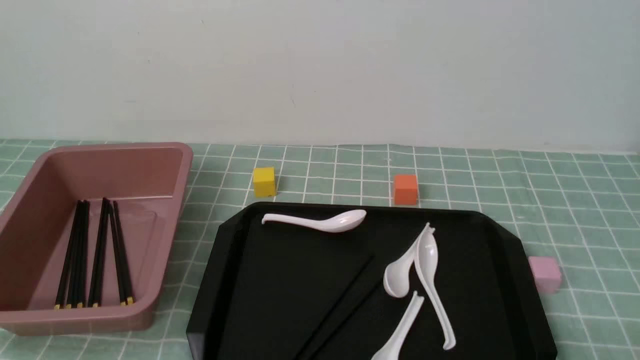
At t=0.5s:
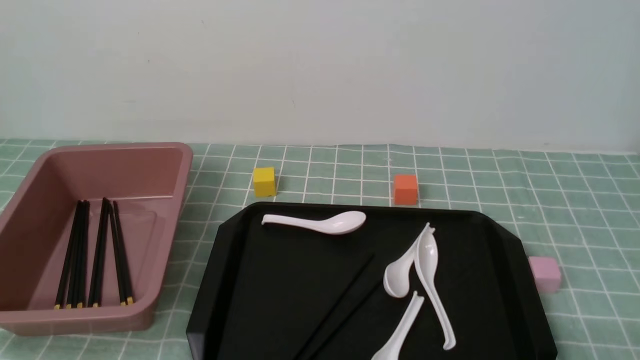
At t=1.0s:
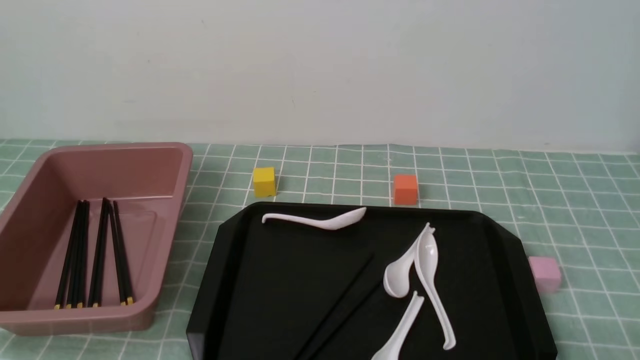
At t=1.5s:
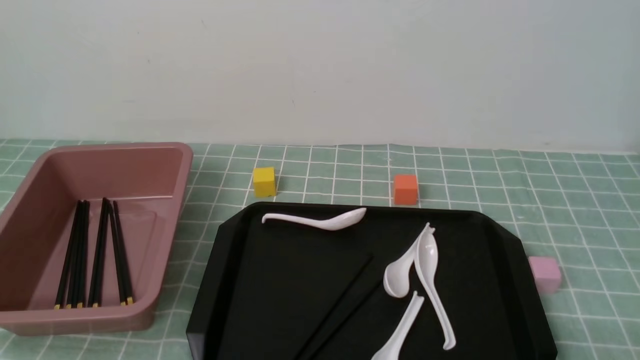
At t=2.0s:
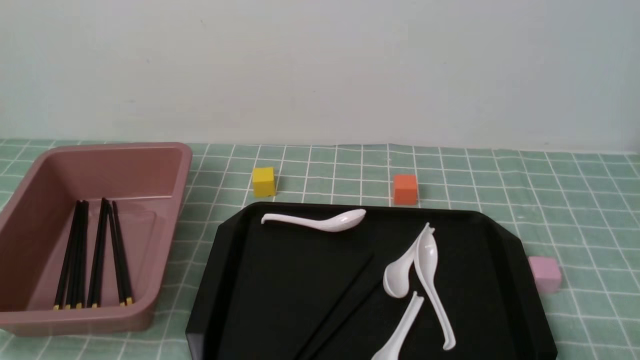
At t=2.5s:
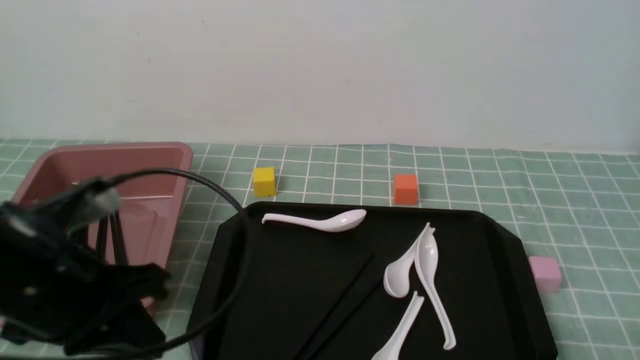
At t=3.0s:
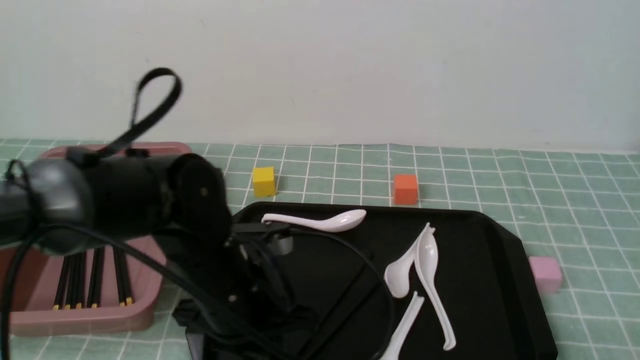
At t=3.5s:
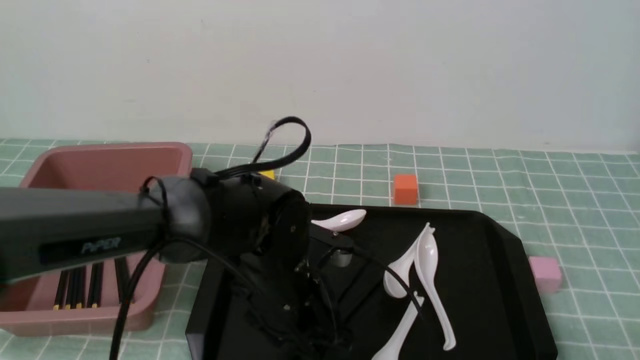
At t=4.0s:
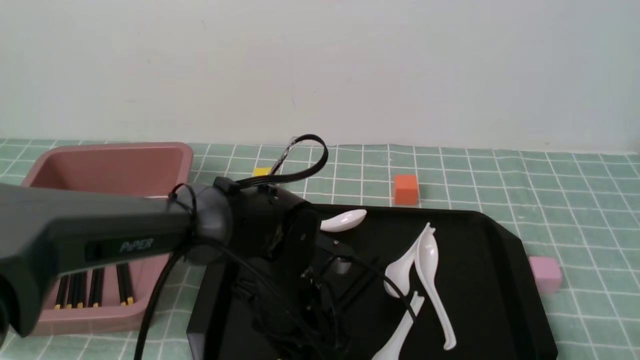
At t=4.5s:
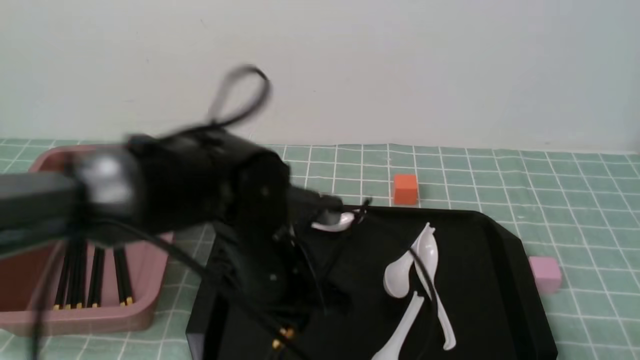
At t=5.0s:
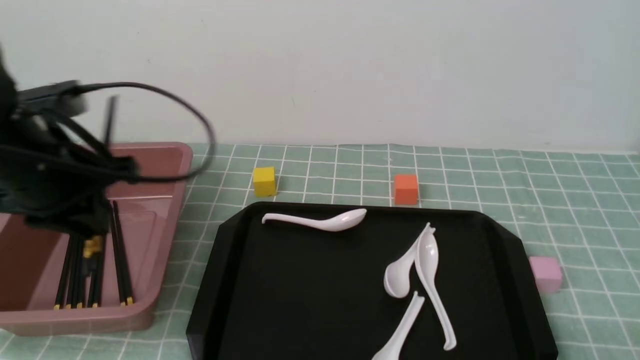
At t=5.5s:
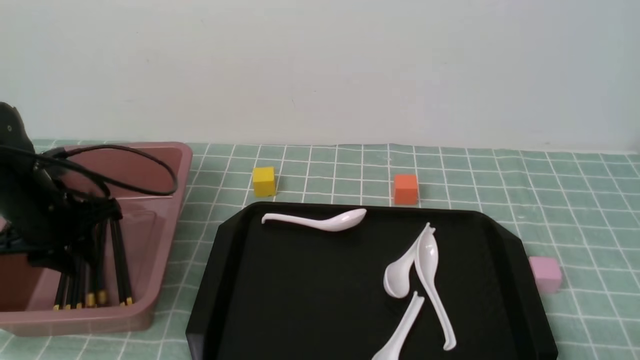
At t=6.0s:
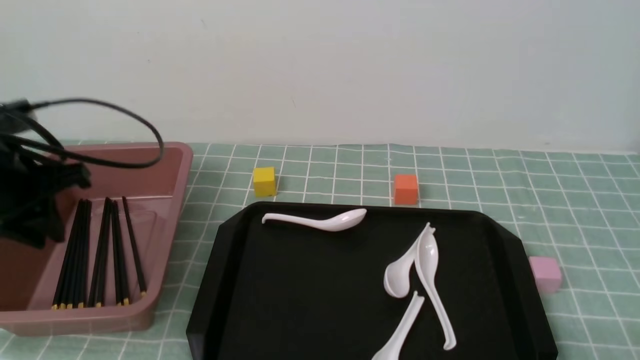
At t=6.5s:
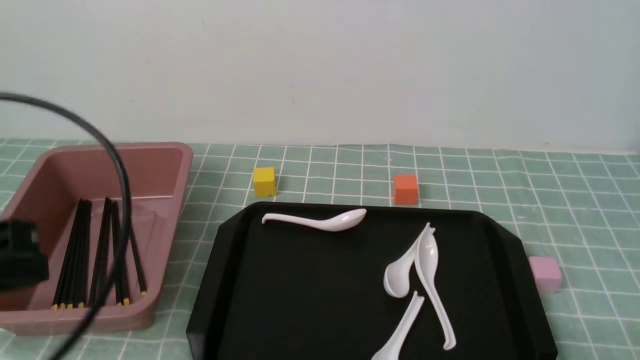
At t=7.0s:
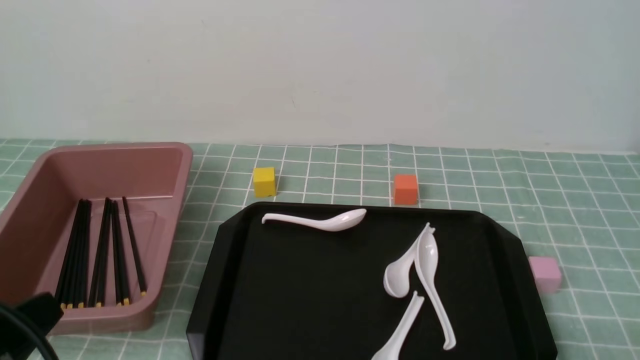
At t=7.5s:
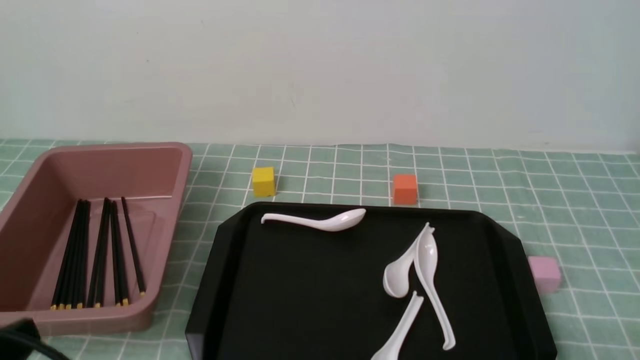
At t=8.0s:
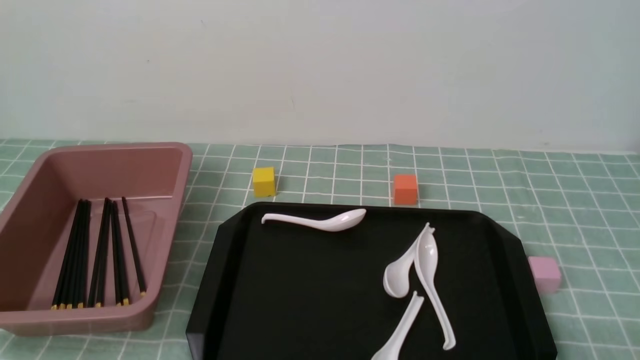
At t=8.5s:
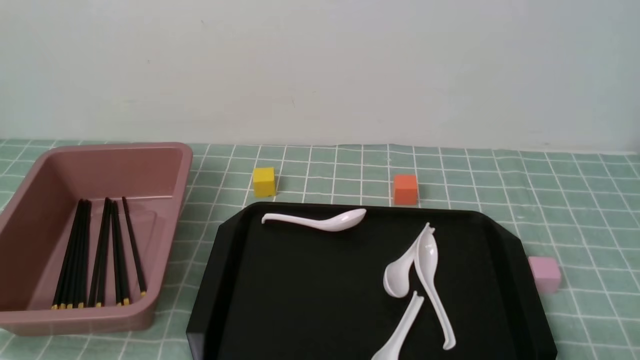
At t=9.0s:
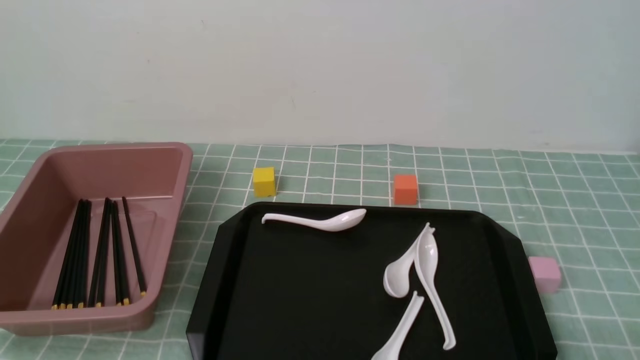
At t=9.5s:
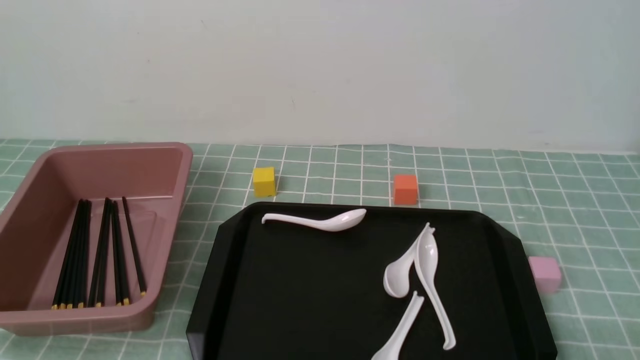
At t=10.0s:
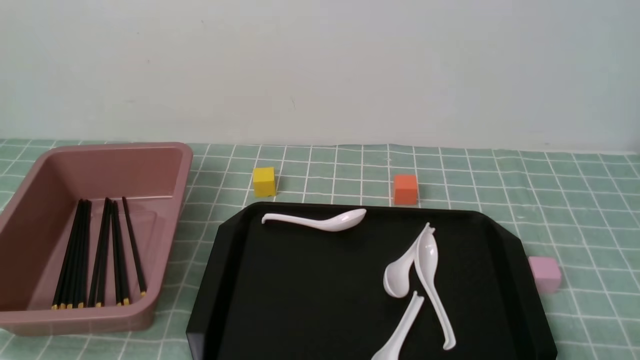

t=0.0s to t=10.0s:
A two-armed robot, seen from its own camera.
Step, t=0.0s to t=4.5s: use the left arm to grab a pair of chopsticks.
Step, t=5.0s to t=6.0s: use the left arm to put the chopsticks into the lunch box.
t=2.0s to t=4.0s: The left gripper travels forward, to the right and downward by approximately 35 cm, and opens up.
t=4.0s to t=6.0s: The left gripper shifts about 30 cm to the left and upward.
t=6.0s to t=8.0s: The left gripper heads backward and downward, covering roughly 25 cm, and closes up.
t=8.0s to t=10.0s: Both grippers stay put.

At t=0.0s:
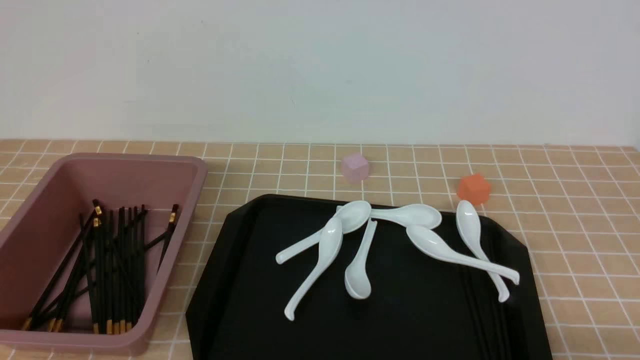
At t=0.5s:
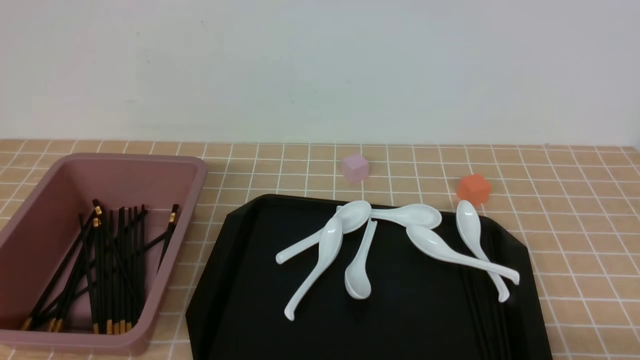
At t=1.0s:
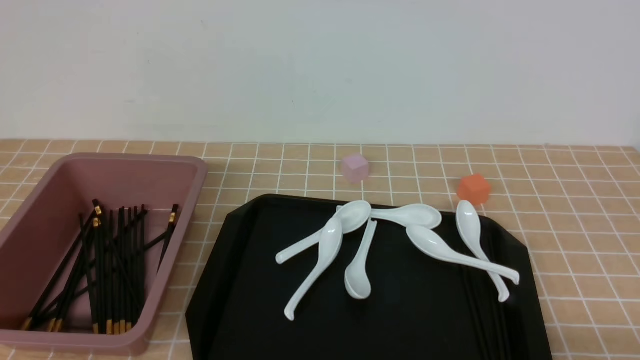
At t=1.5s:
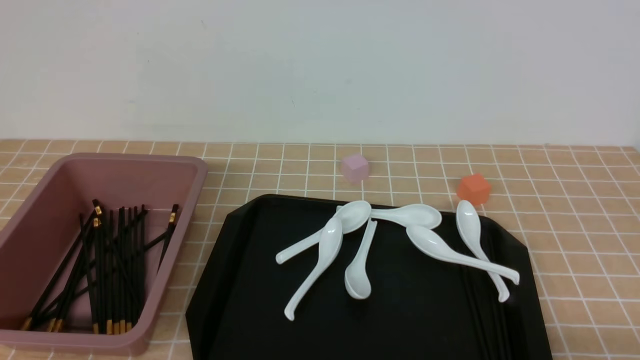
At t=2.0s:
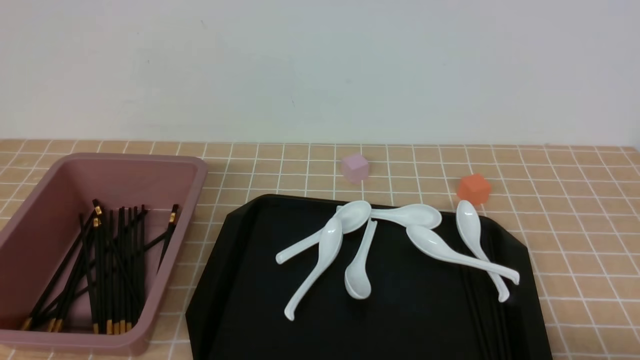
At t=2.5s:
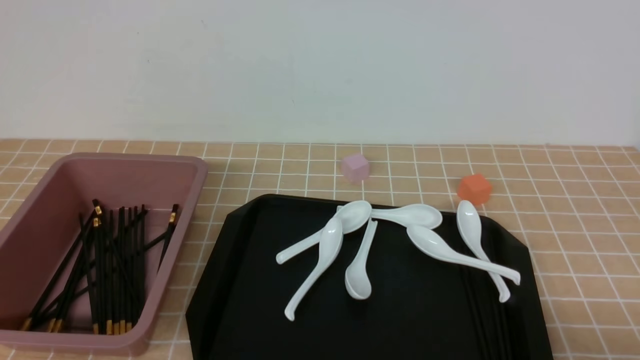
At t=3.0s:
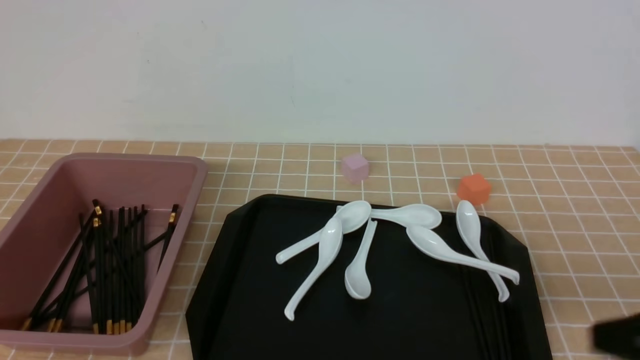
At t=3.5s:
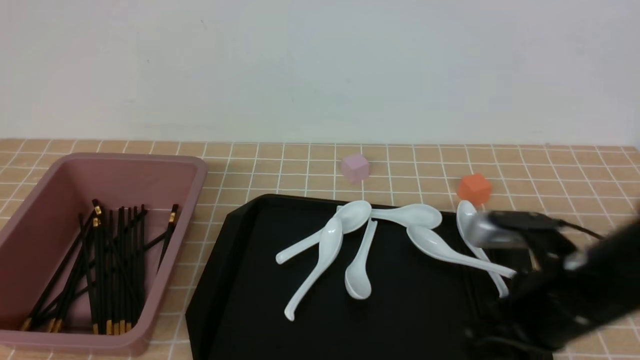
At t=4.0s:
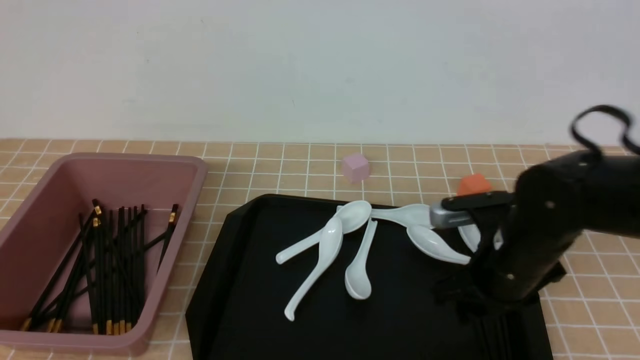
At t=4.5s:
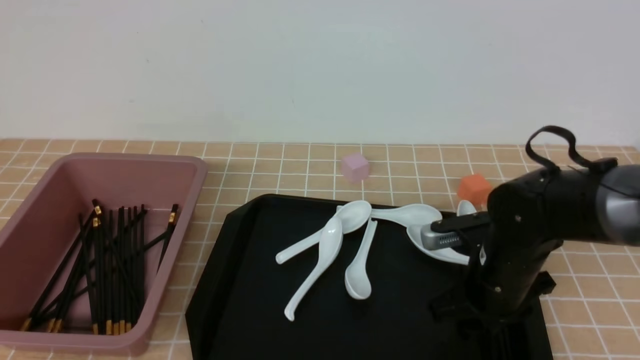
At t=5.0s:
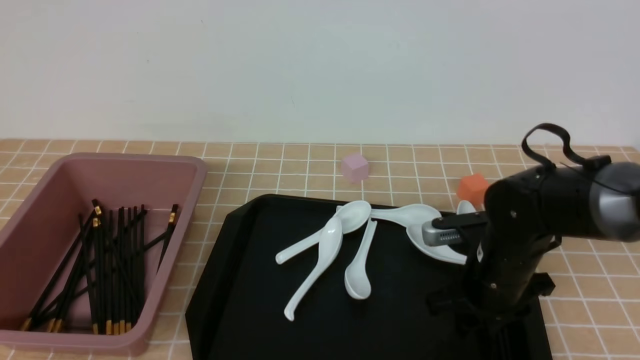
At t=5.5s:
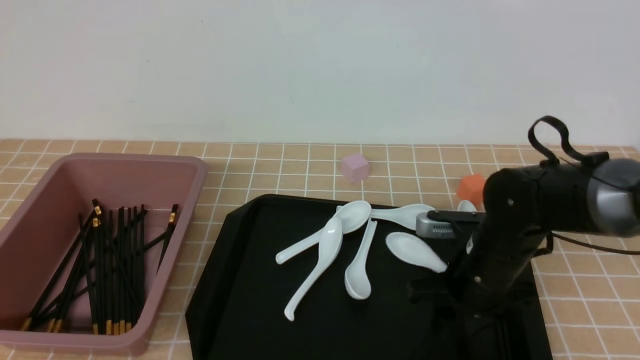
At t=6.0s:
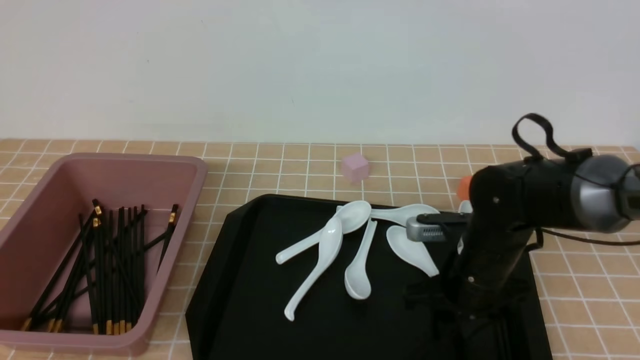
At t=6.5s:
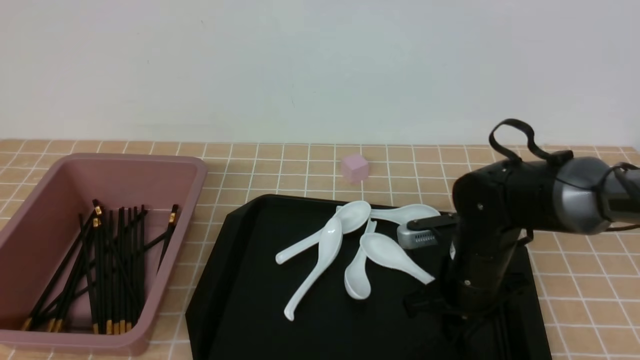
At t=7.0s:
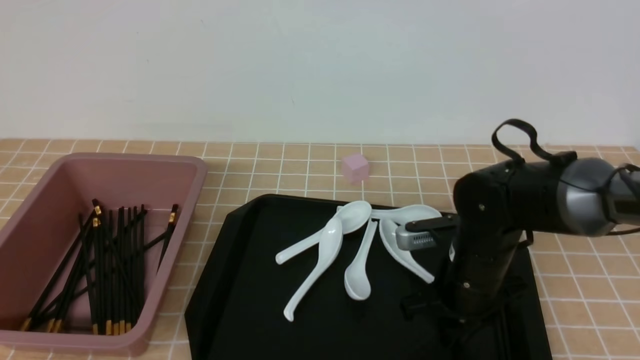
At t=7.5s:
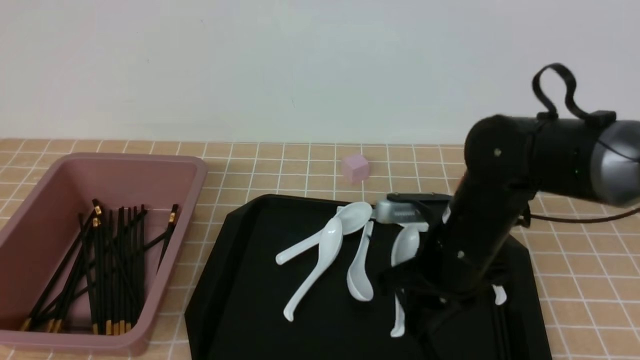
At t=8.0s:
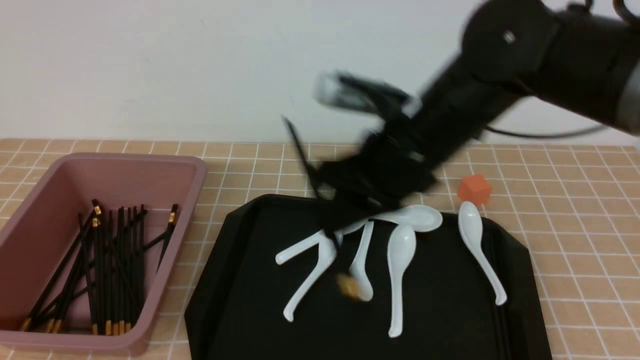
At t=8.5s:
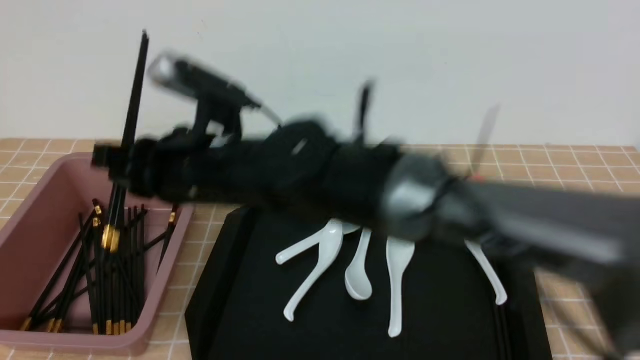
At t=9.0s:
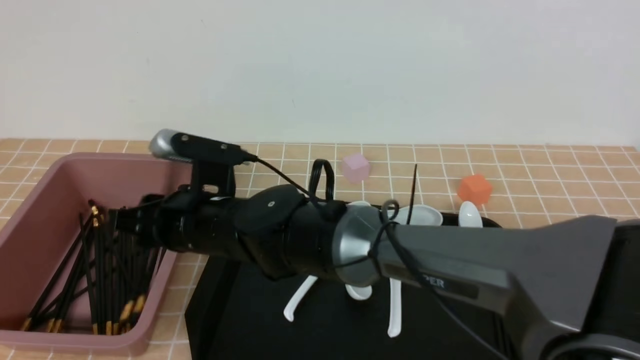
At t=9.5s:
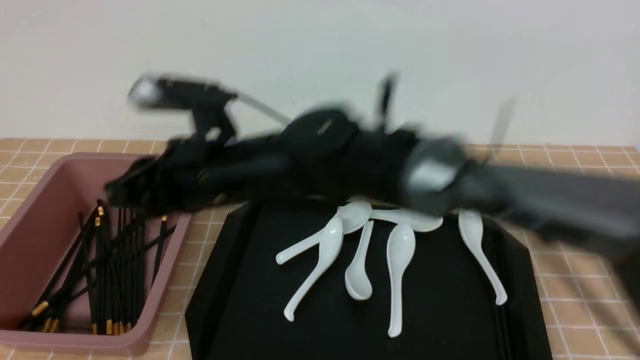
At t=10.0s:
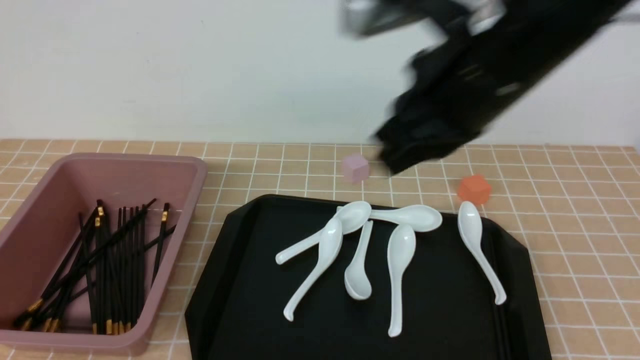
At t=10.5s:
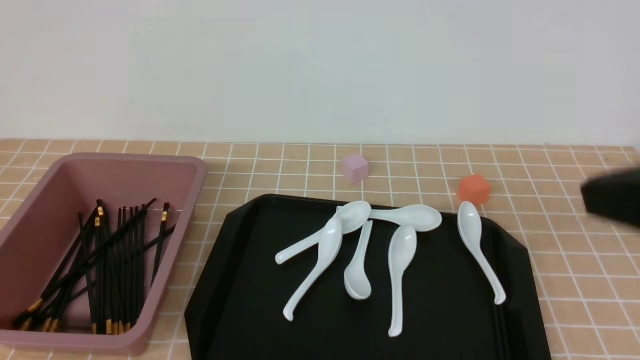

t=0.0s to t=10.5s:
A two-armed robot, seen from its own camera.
Step, t=0.0s to t=7.0s: use the right arm to grab a pair of chopsticks.
Step, t=7.5s to t=9.5s: use the right arm to put the chopsticks into the lunch box.
t=2.0s to t=4.0s: The right gripper is displaced forward and to the left by approximately 25 cm, and closes, then reopens.
t=4.0s to t=6.5s: The right gripper changes place by about 5 cm, and closes.
t=6.5s to t=8.5s: The right gripper shifts some 25 cm to the left and upward.
t=8.5s to t=10.5s: The right gripper goes some 35 cm to the right and backward, and closes.
